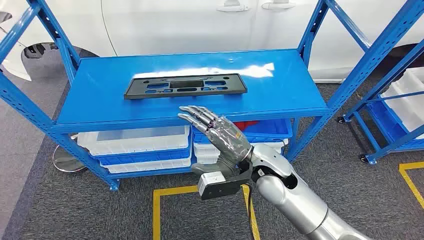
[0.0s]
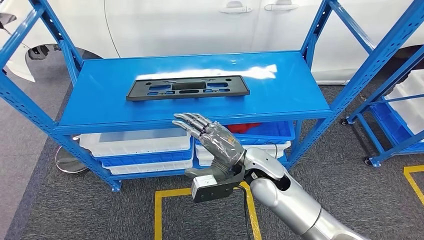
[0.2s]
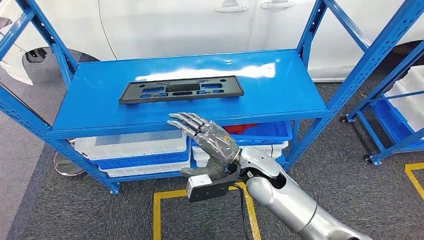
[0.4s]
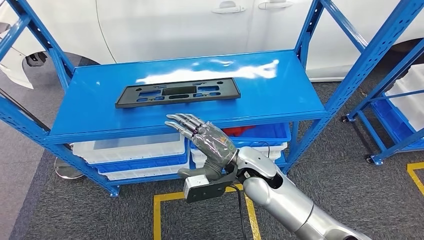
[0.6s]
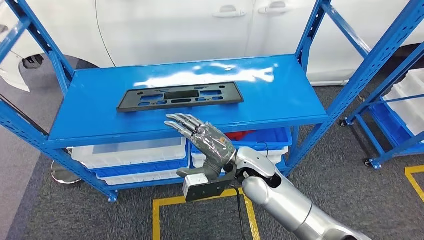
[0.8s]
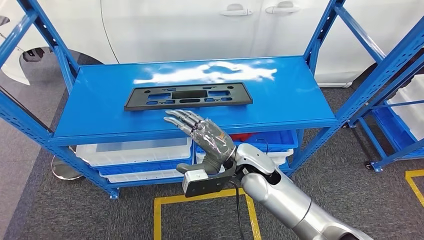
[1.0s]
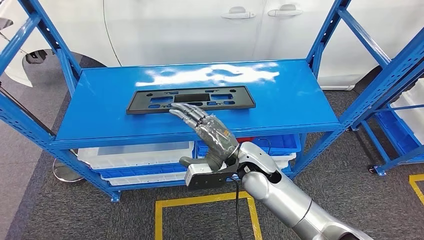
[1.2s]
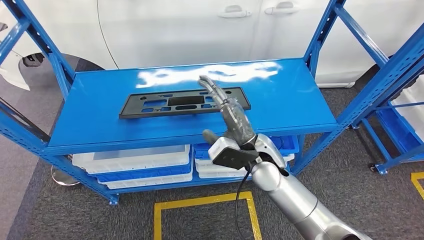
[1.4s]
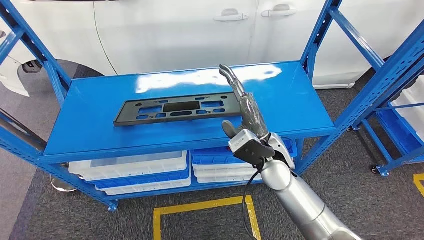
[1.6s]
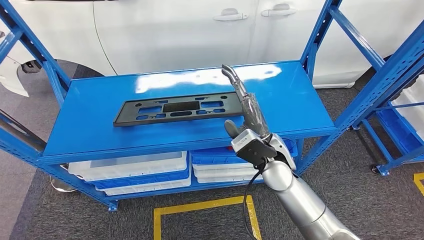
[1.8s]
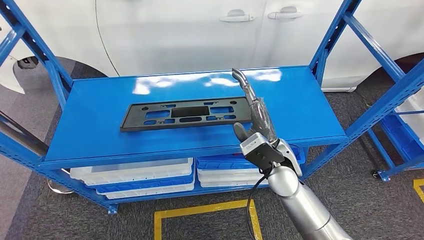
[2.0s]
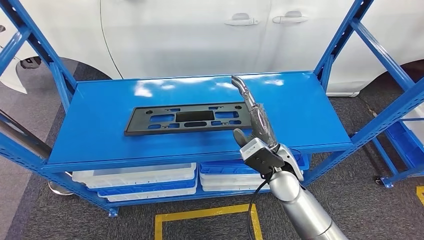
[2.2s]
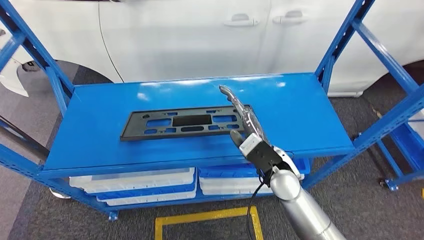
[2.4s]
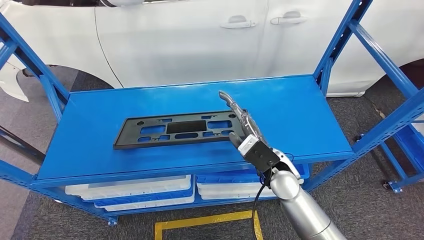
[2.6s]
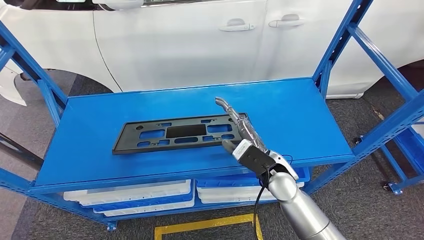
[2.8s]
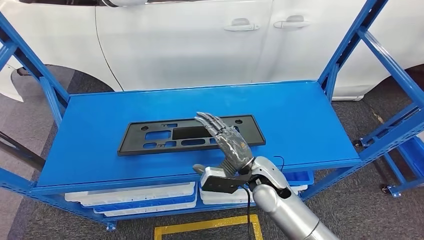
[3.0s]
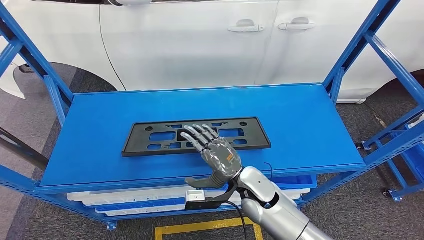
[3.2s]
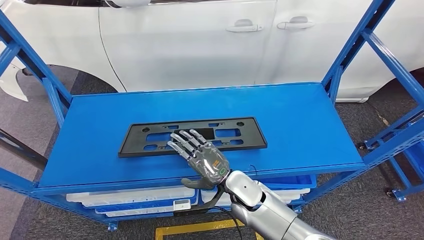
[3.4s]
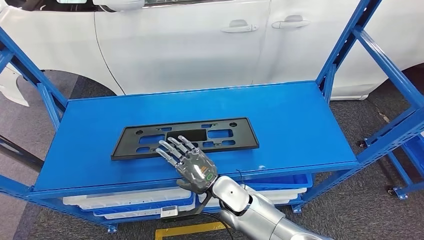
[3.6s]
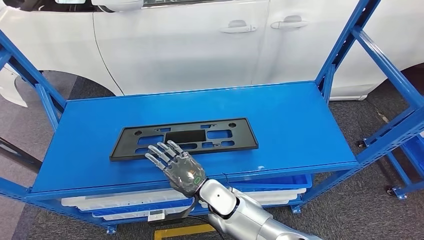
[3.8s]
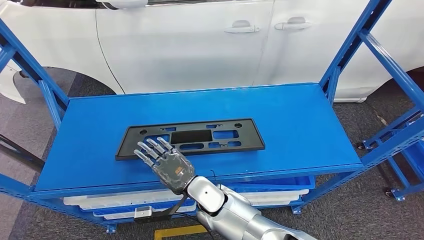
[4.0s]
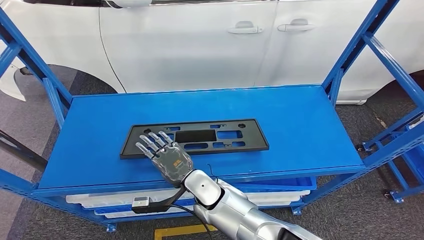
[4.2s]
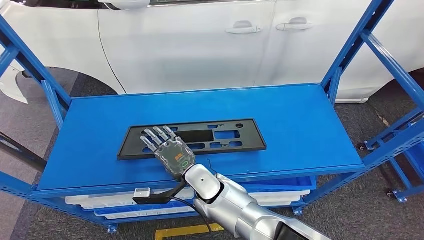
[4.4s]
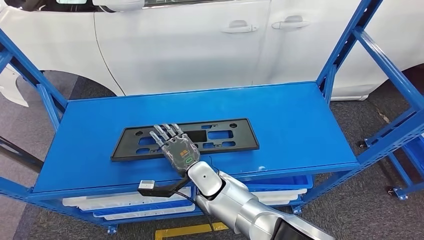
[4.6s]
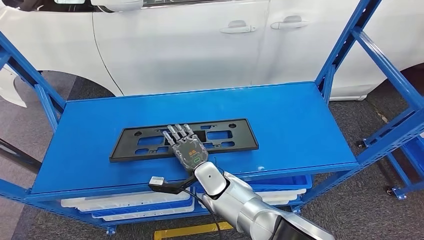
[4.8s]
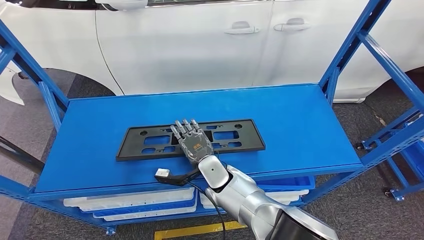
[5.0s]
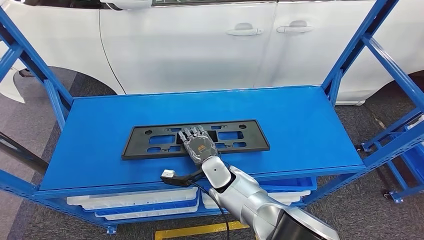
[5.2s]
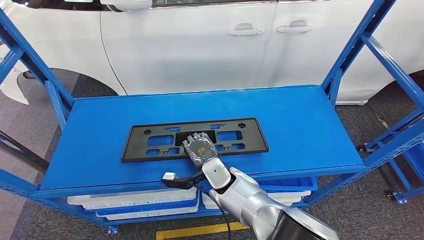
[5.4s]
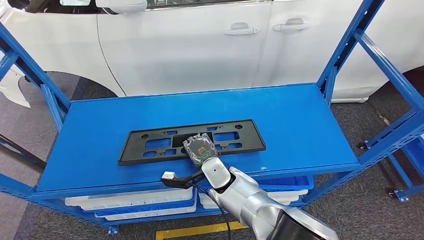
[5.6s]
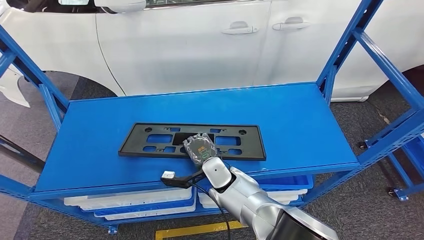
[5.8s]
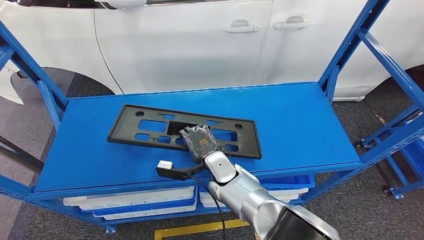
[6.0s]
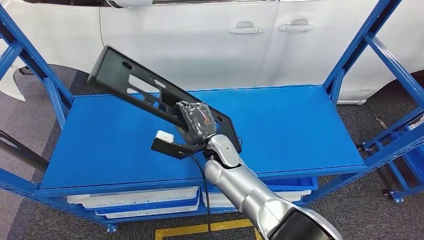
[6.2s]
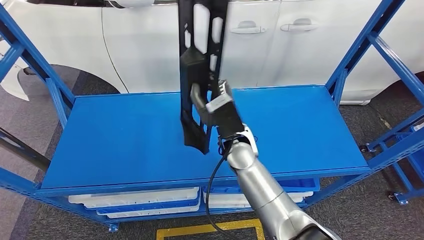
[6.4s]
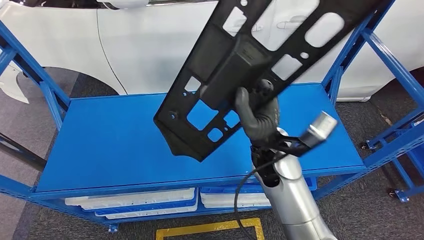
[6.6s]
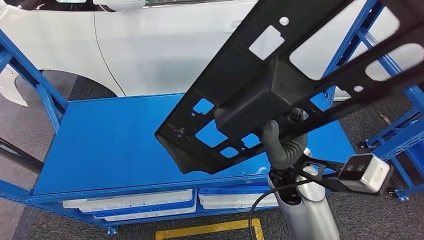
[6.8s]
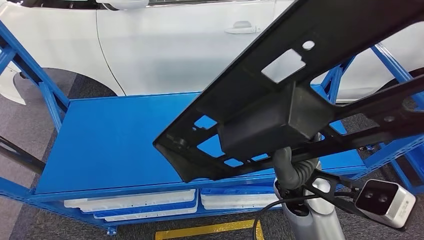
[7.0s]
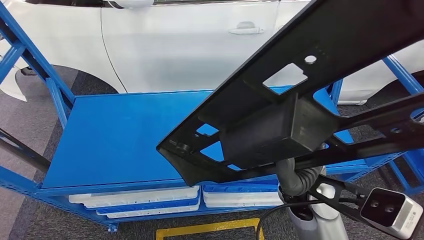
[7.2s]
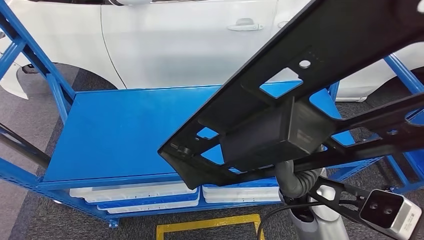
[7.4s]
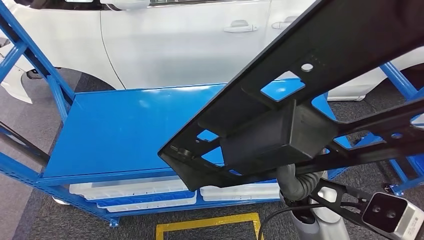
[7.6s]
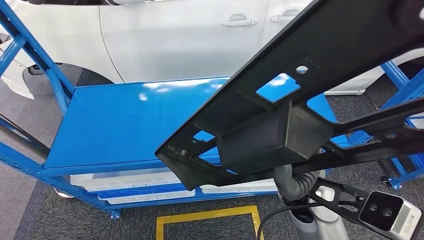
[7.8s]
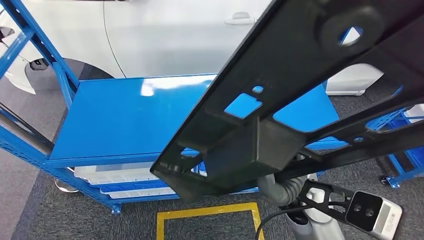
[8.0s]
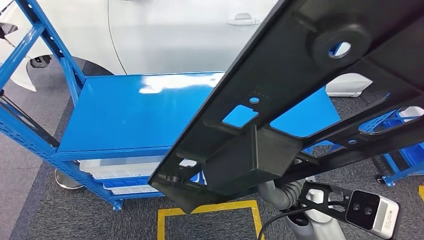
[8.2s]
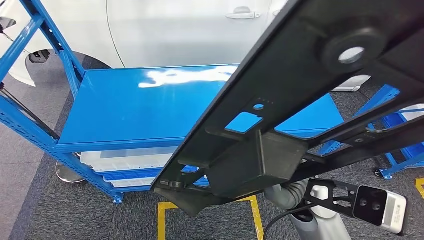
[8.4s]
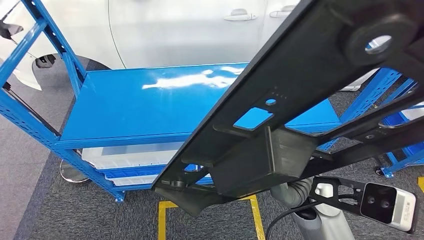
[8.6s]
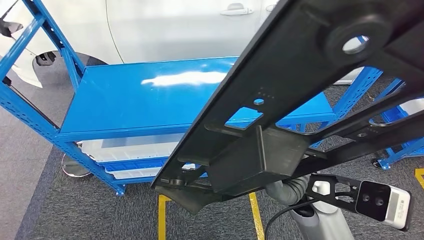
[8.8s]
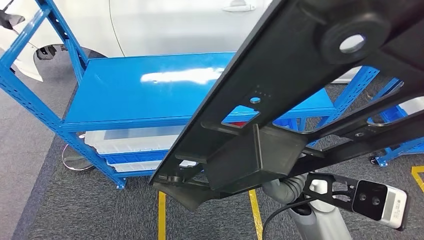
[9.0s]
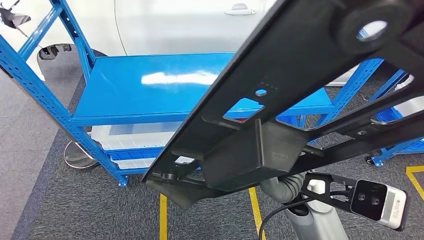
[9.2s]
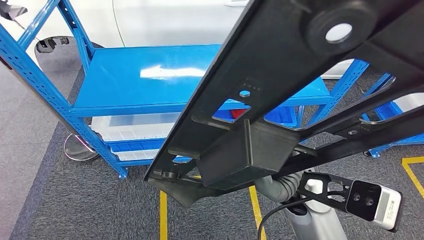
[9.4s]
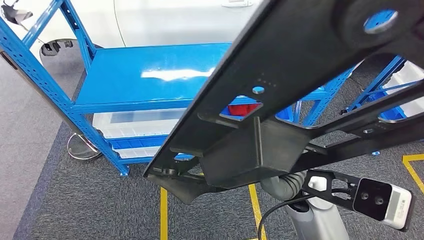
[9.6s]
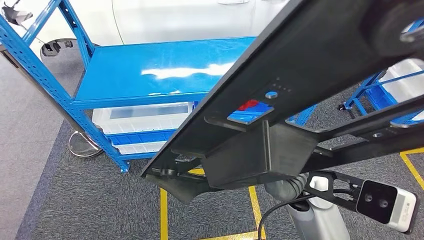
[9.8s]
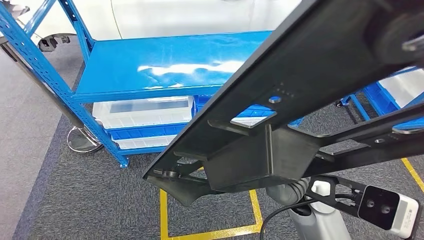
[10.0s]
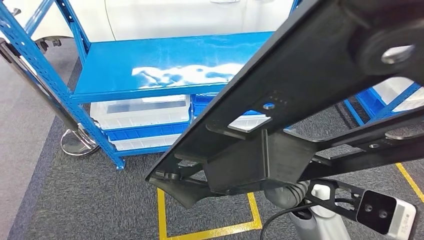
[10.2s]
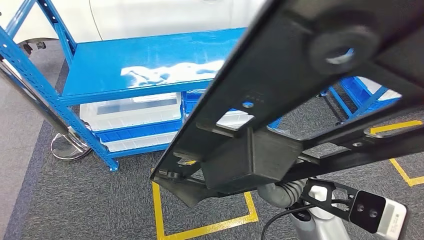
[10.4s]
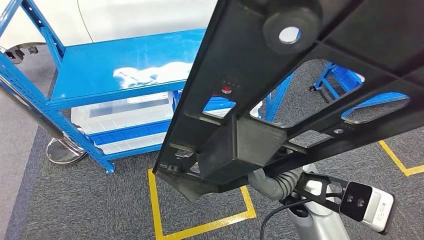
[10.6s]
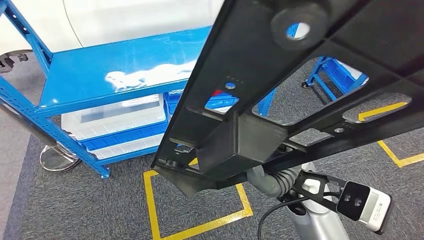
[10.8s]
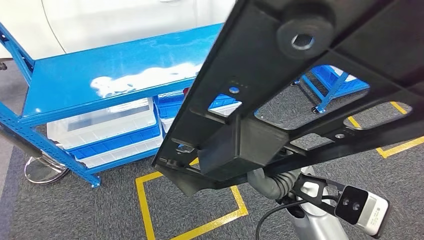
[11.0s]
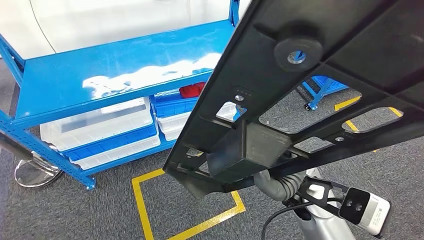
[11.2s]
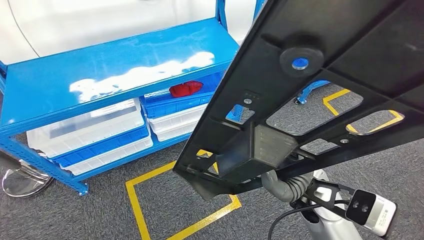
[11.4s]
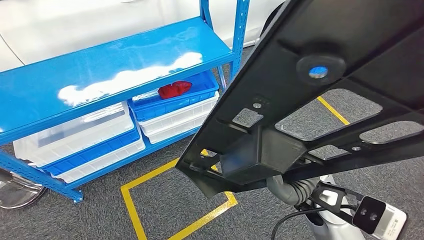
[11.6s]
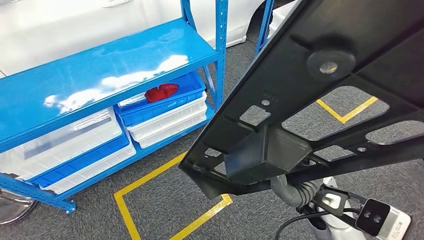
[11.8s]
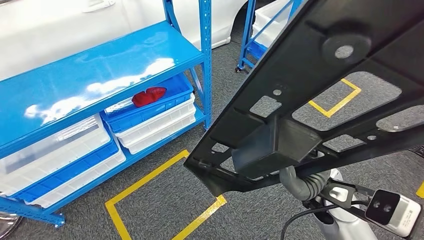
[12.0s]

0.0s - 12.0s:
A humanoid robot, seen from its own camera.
Step, 0.0s - 8.0s: Take small components from the rack.
4.4s - 6.0s: The right hand moves some 5 cm.

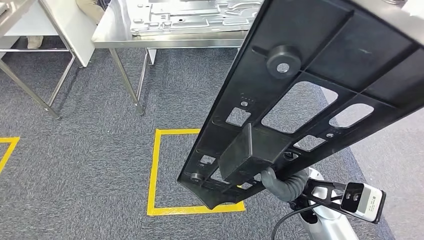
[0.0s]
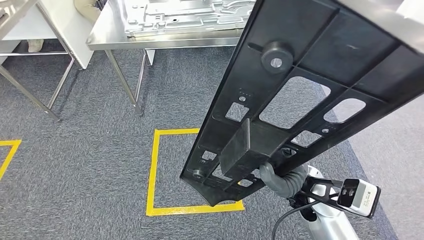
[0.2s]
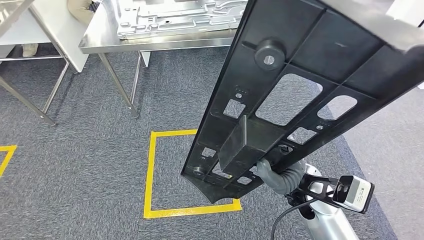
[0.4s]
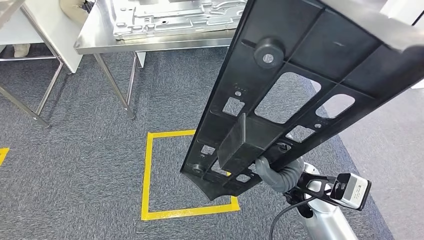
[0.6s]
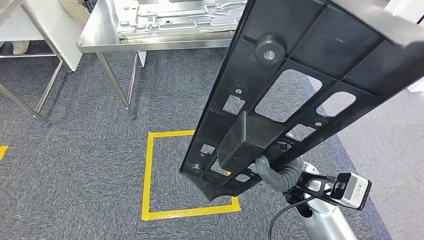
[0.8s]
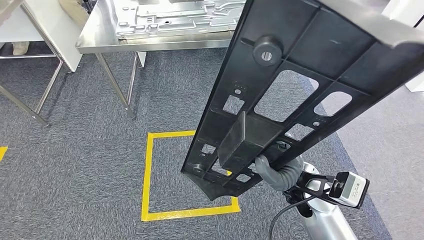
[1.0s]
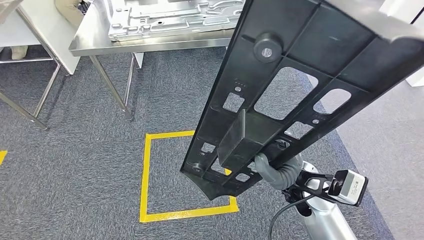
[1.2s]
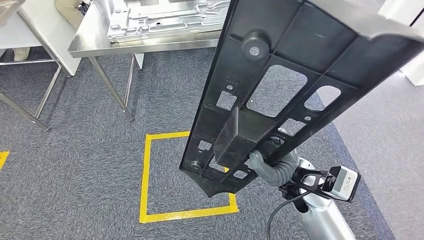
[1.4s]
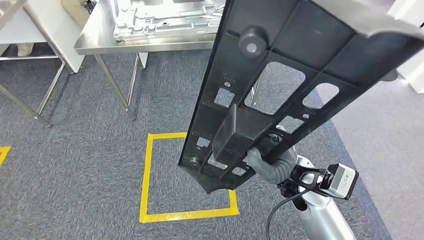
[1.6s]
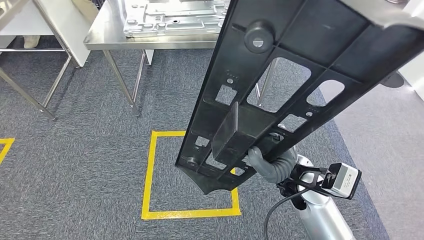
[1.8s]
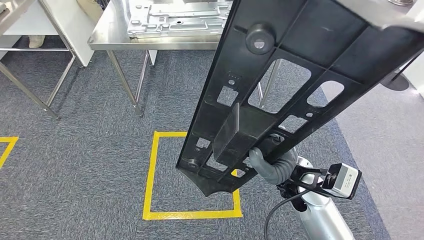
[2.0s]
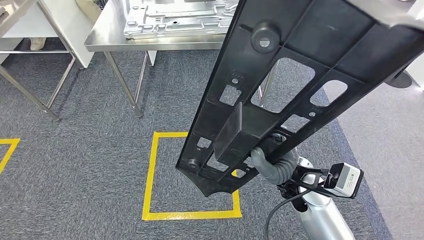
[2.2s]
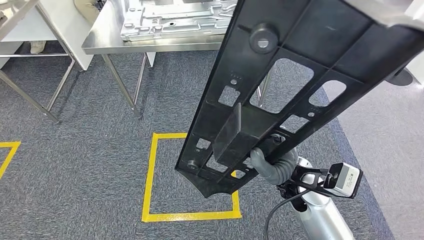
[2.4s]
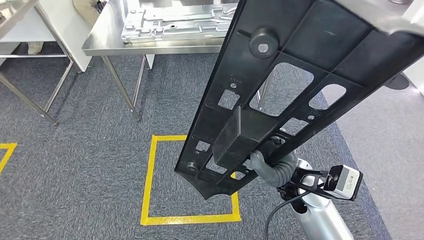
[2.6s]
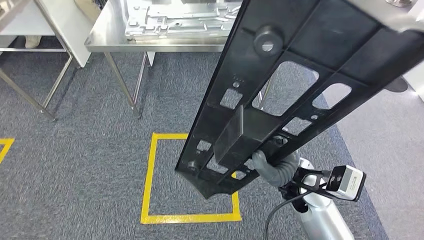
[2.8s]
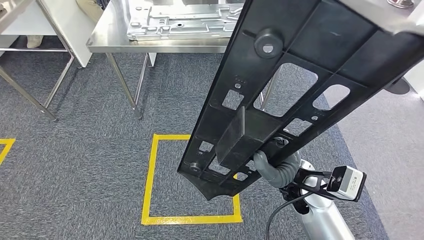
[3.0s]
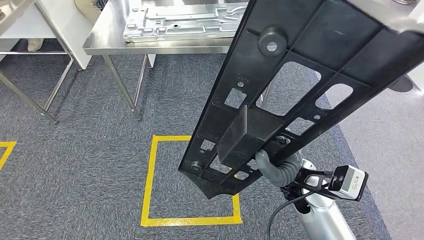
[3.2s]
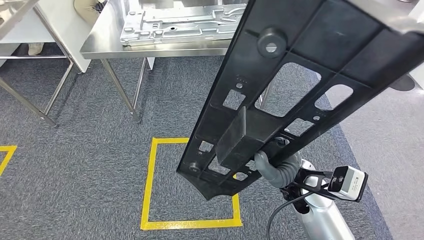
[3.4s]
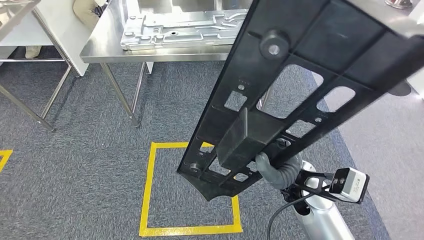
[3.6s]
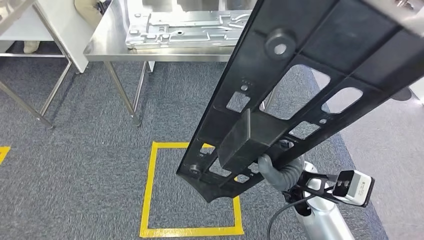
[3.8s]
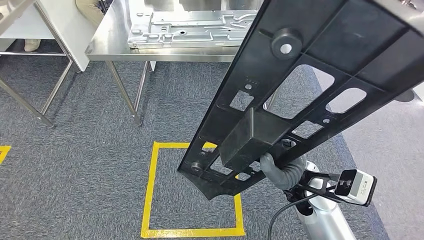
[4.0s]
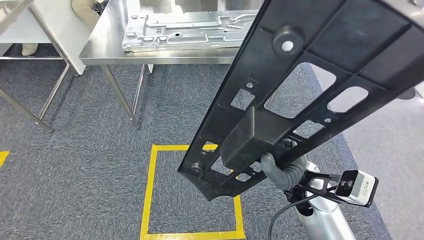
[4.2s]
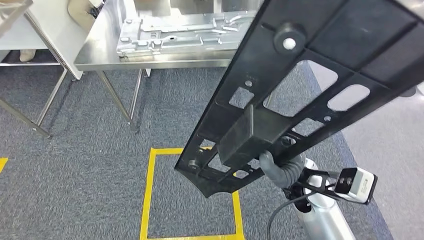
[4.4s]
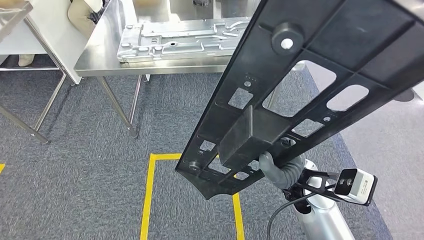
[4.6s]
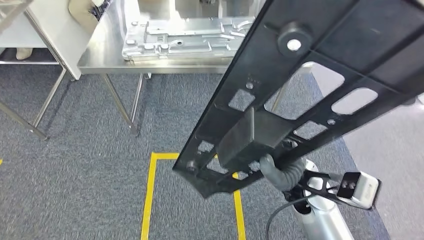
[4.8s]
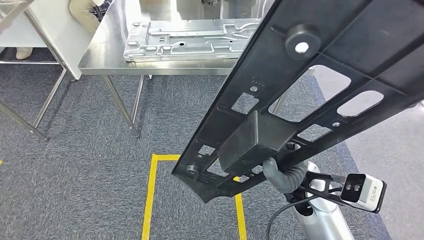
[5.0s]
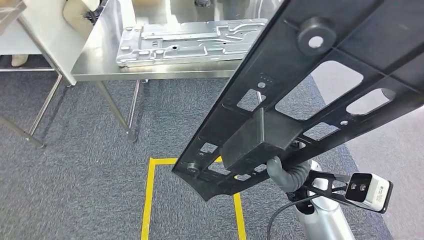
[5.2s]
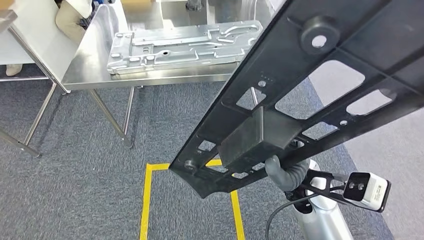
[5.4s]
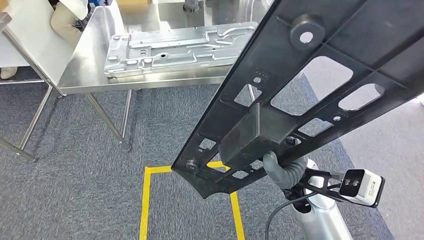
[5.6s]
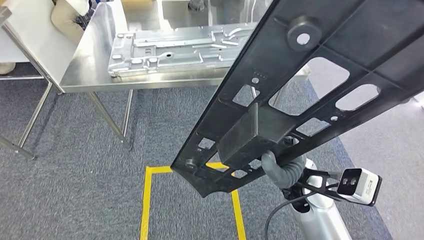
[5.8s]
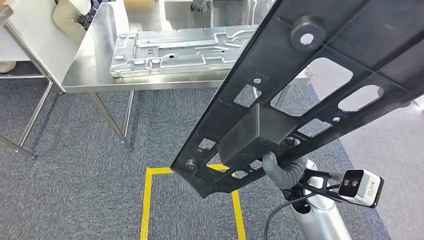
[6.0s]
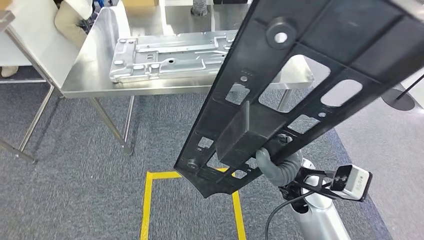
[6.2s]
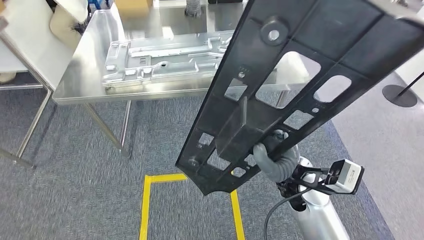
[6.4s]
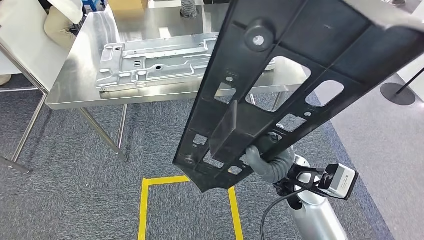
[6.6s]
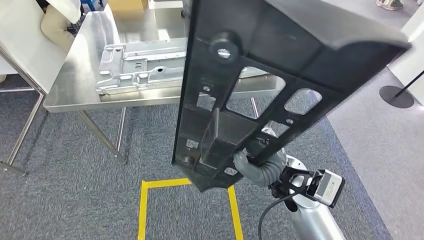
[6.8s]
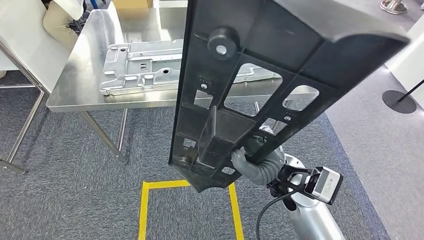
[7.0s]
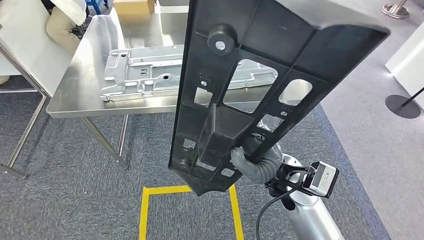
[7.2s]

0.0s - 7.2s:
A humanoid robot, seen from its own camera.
Step, 0.0s - 7.2s: Move the small parts to the workbench.
